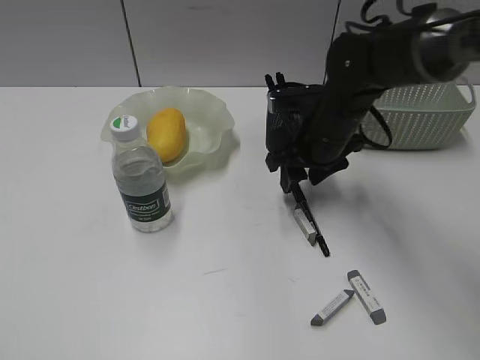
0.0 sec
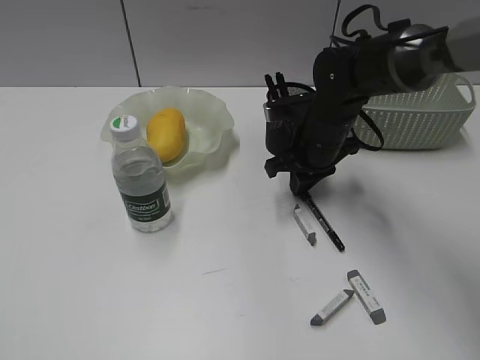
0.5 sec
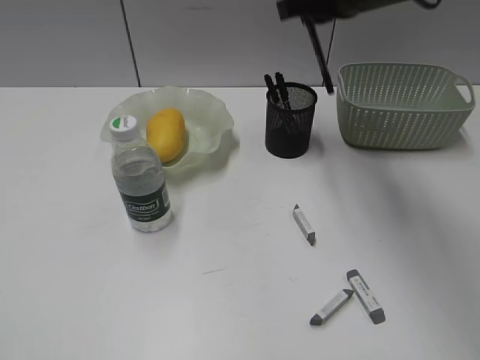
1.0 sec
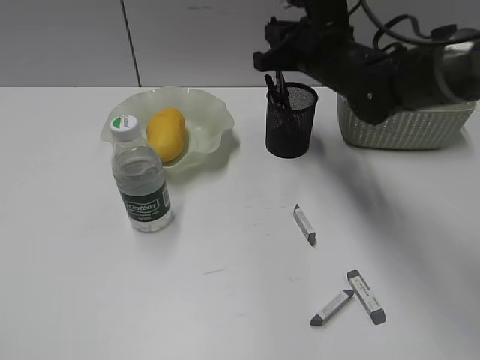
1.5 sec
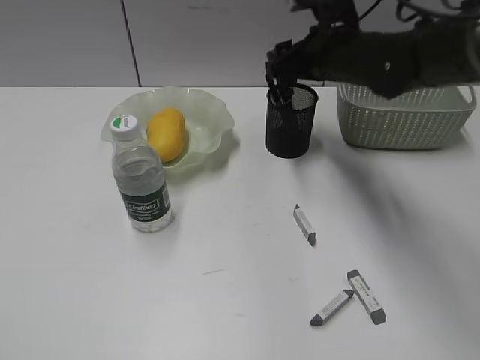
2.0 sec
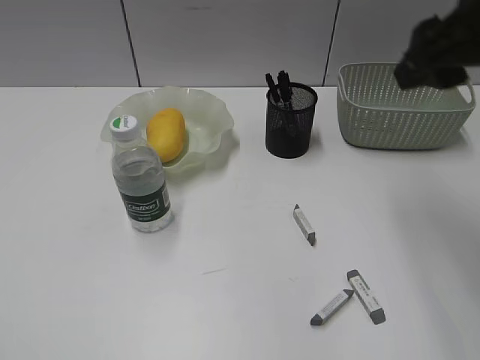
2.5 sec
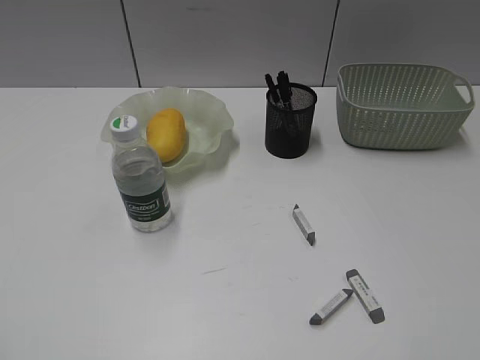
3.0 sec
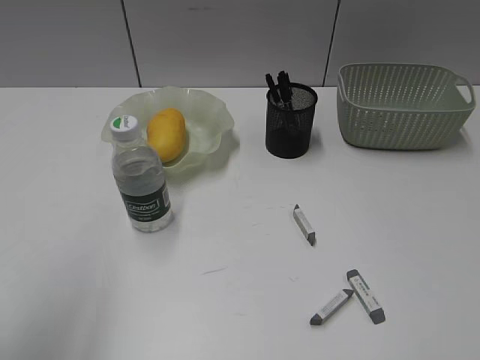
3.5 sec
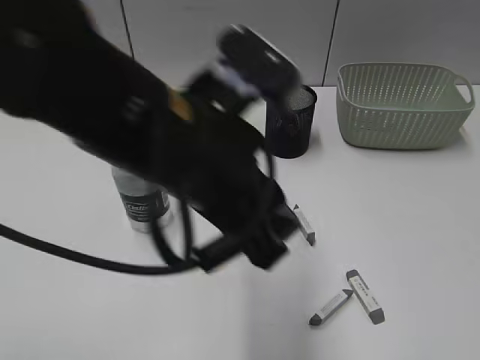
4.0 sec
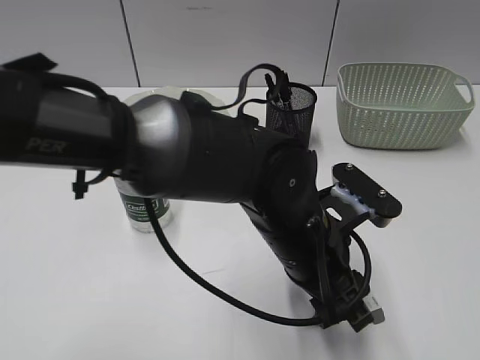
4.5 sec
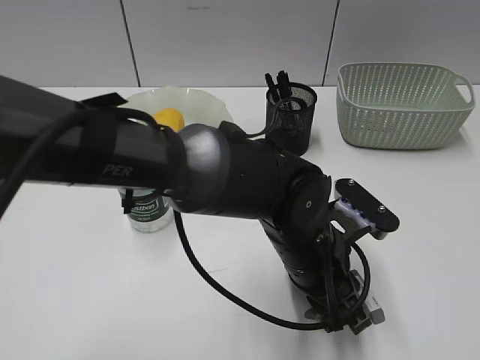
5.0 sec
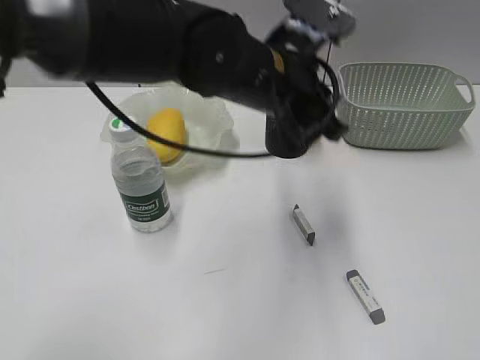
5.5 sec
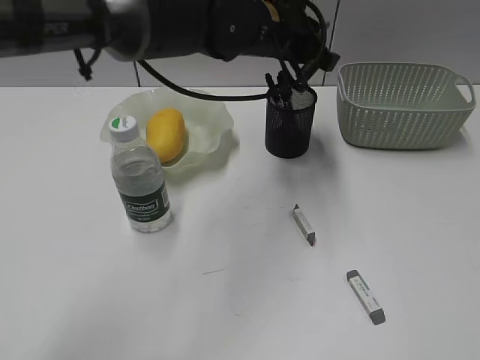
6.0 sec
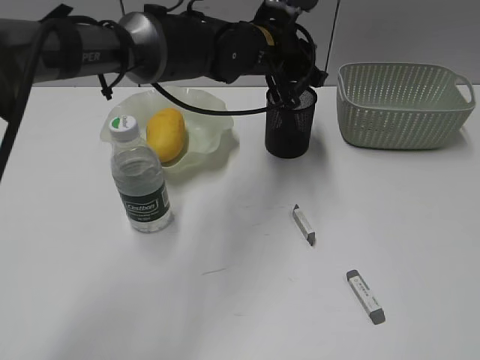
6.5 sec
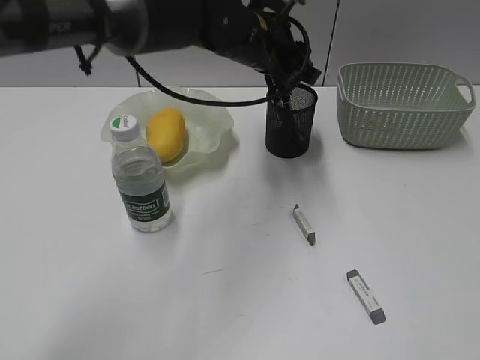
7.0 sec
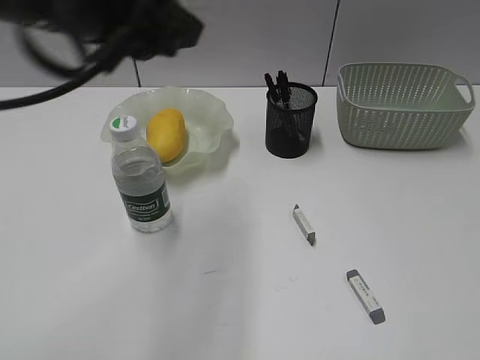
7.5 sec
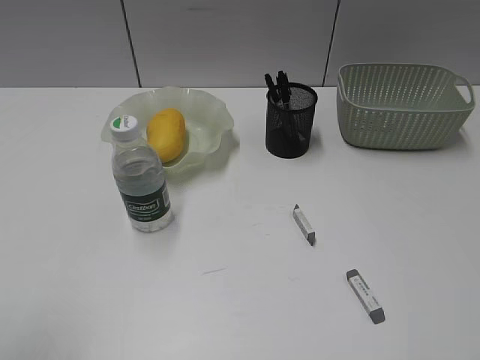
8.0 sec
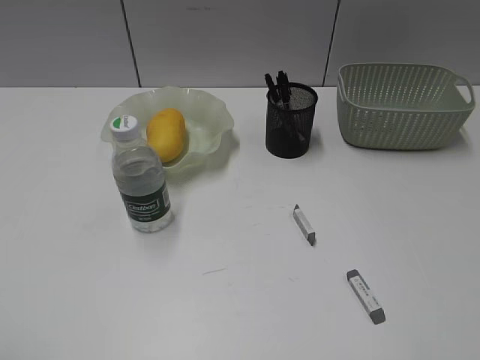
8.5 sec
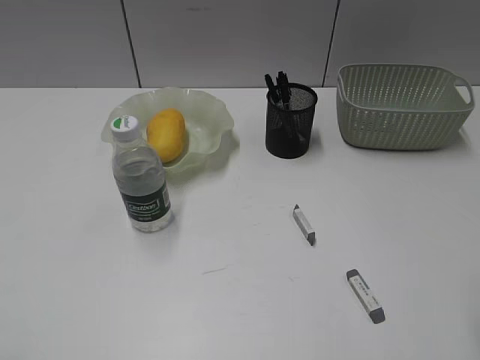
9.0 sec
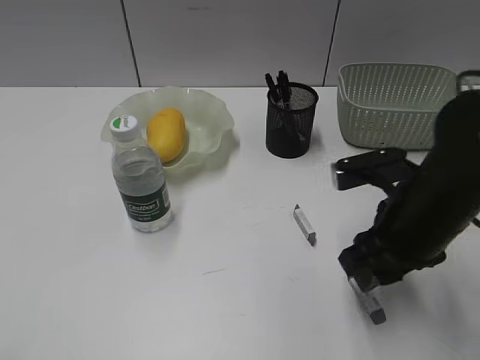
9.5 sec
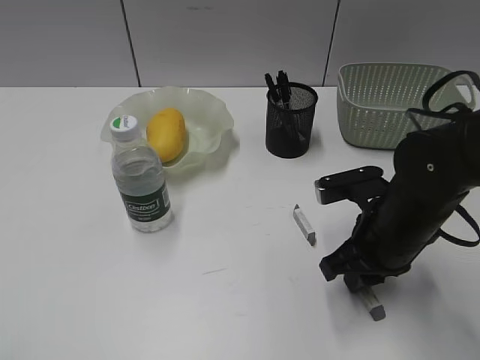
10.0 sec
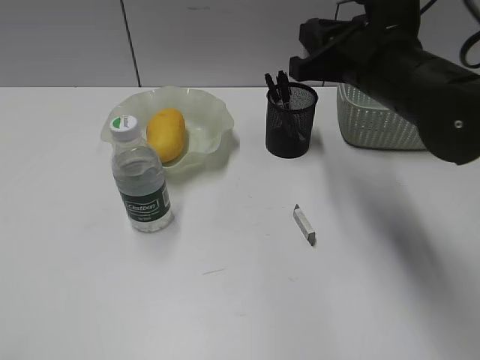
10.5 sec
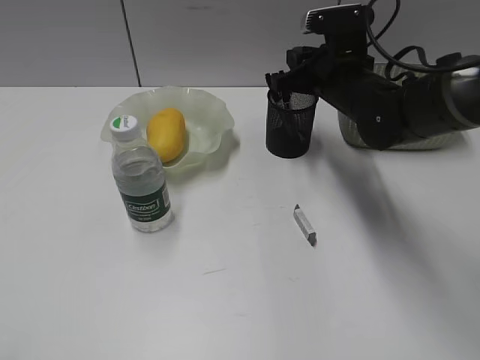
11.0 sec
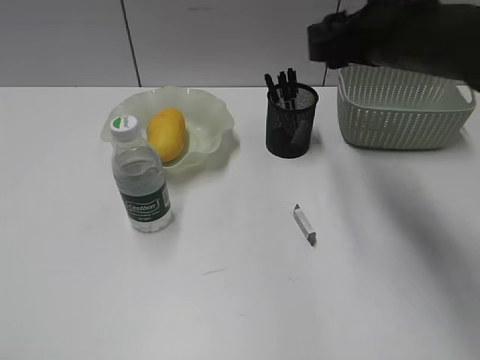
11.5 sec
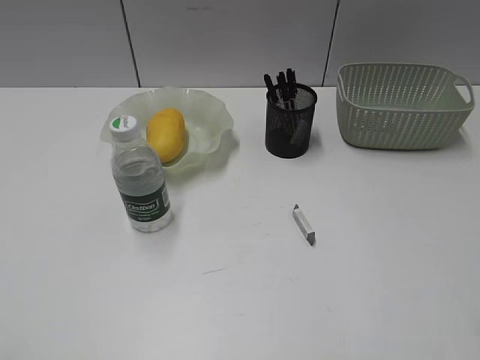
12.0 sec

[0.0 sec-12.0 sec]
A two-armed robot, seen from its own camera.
Step, 0.5 sec to 2.0 sec: Place the black pen in pen holder with right gripper.
Step, 2.5 sec to 5.0 sec: Grasp the eraser with left gripper.
Step, 5.5 sec to 7.0 sec: Place the eraser in pen holder with left gripper.
Step, 7.5 sec to 10.0 sec: Grasp the eraser with right gripper.
Step, 10.5 sec to 11.0 sec: Place the eraser in pen holder with right gripper.
0.0 sec to 2.0 sec: The right gripper moves upward, roughly 10 cm, and closes and opens again.
2.0 sec to 4.0 sec: The left gripper moves to the right and forward, about 35 cm, while the right gripper shifts some 50 cm backward and to the right, and closes up.
4.0 sec to 6.0 sec: The left gripper moves forward, roughly 20 cm, and closes up.
6.0 sec to 8.0 sec: The left gripper goes approximately 50 cm backward and to the left, and opens.
8.0 sec to 10.0 sec: The right gripper is displaced forward, downward and to the left by approximately 35 cm.
10.0 sec to 12.0 sec: The right gripper shifts some 25 cm upward, backward and to the right, and opens its fingers.

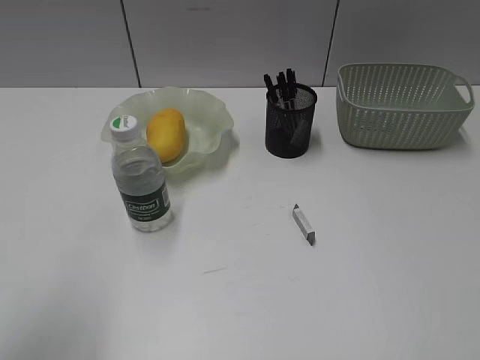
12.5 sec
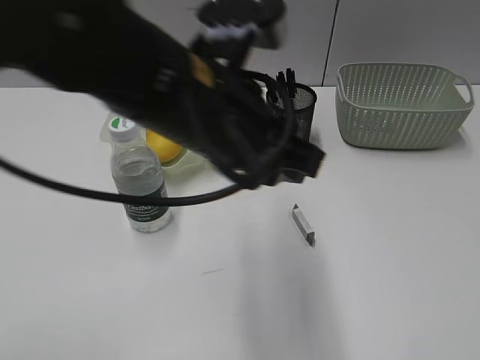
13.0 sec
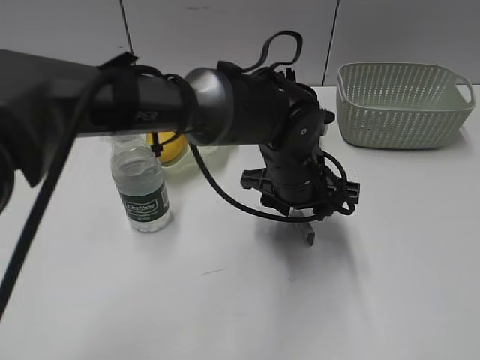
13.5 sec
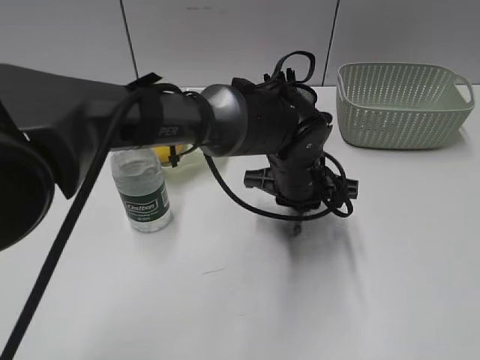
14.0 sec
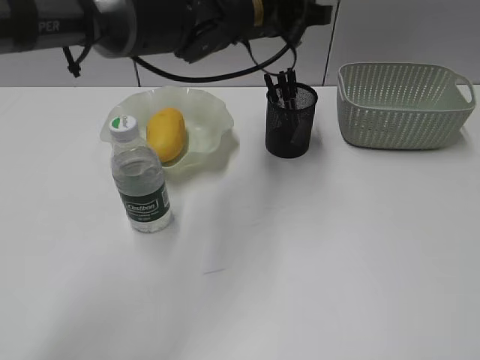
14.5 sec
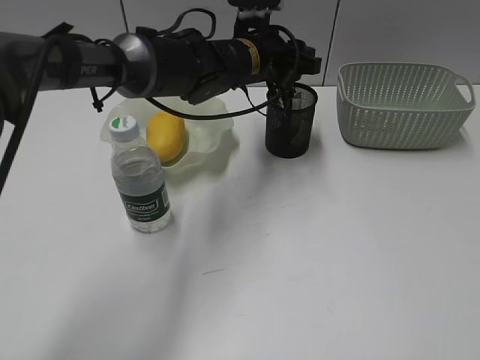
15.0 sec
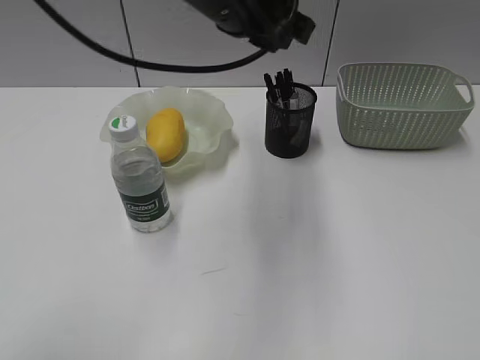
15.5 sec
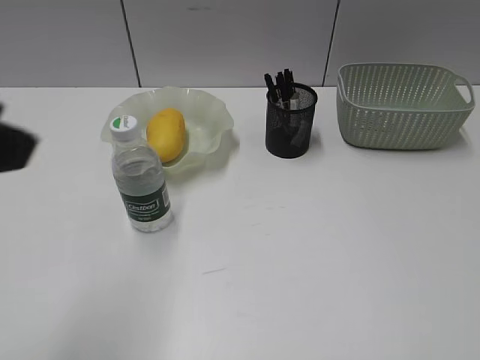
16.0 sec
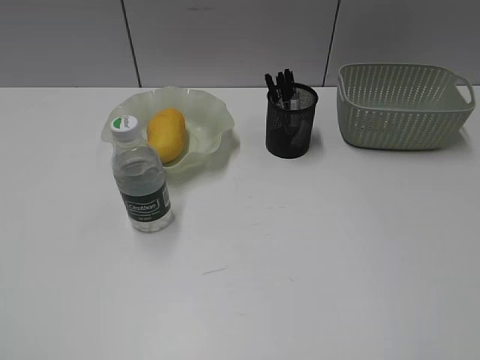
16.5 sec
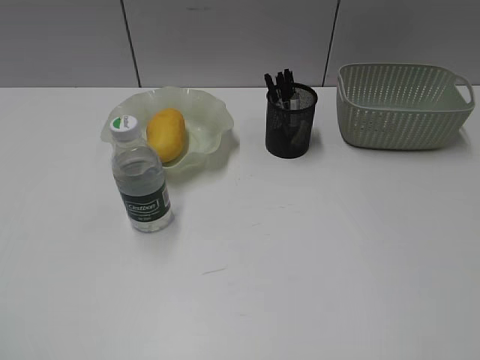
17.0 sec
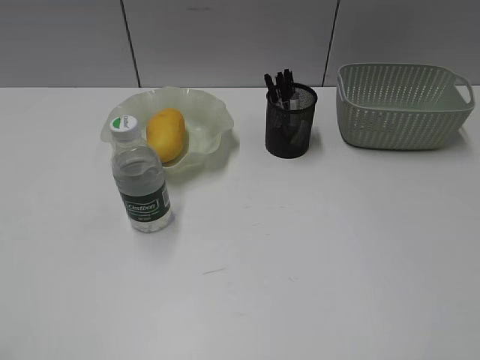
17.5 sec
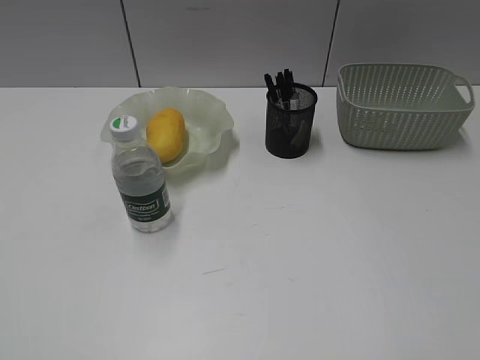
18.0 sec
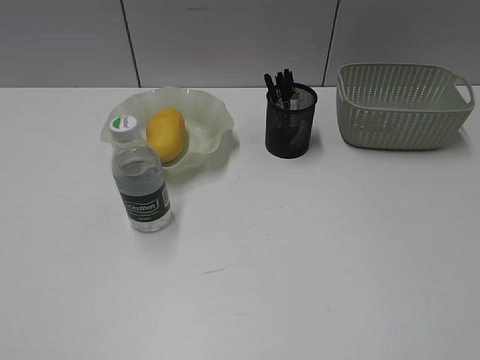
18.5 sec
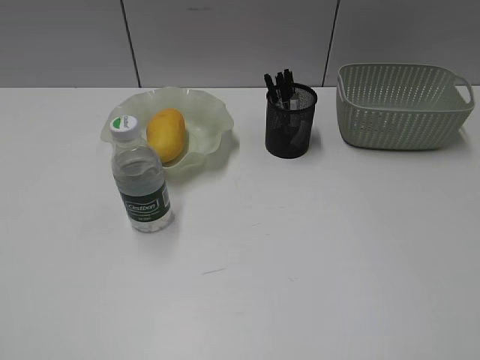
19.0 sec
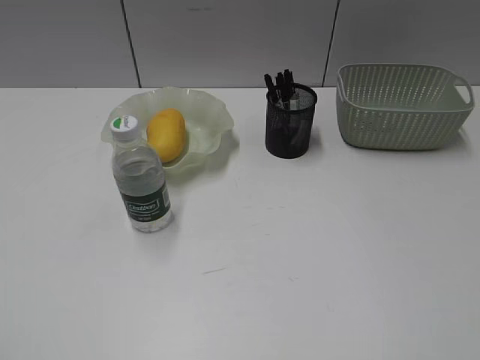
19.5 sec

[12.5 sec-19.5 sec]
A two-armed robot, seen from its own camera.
Step, 14.0 sec to 15.0 sec: Place the eraser in pen holder with left gripper.
12.5 sec to 14.5 sec: The left gripper moves forward and to the right, roughly 40 cm.
14.5 sec to 16.0 sec: The left gripper is displaced backward and to the left by some 40 cm, and opens.
16.0 sec to 17.5 sec: The left gripper is displaced to the left, backward and downward by roughly 15 cm.
